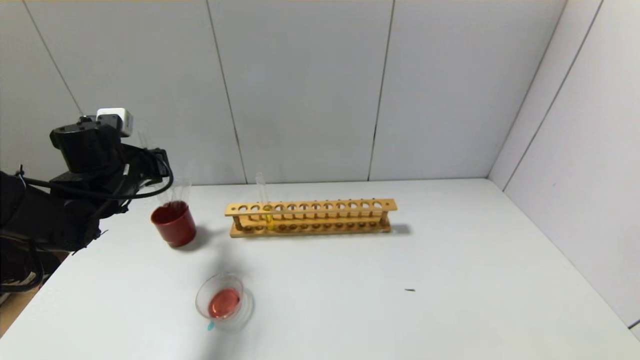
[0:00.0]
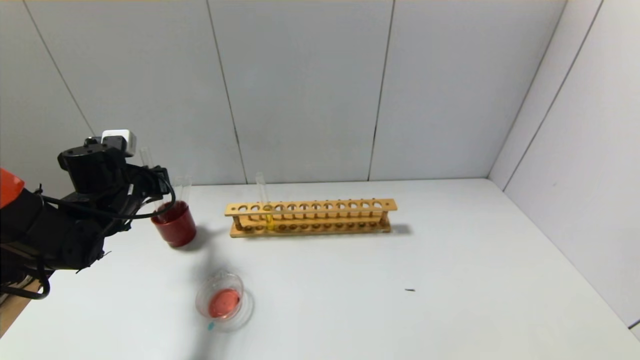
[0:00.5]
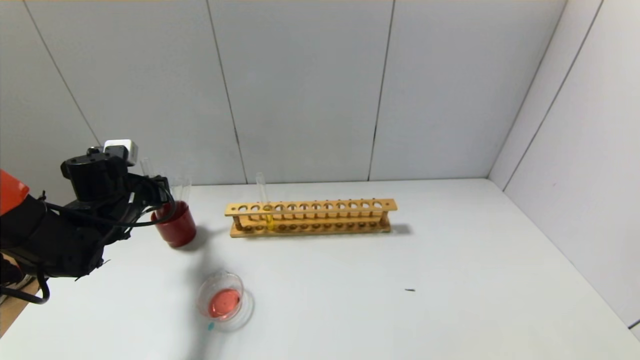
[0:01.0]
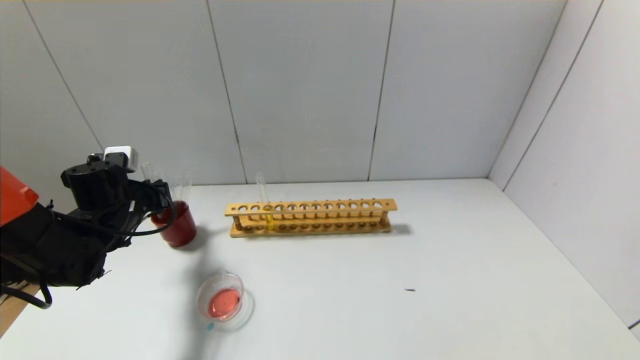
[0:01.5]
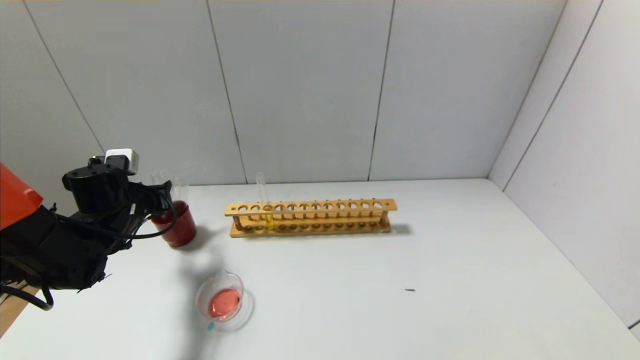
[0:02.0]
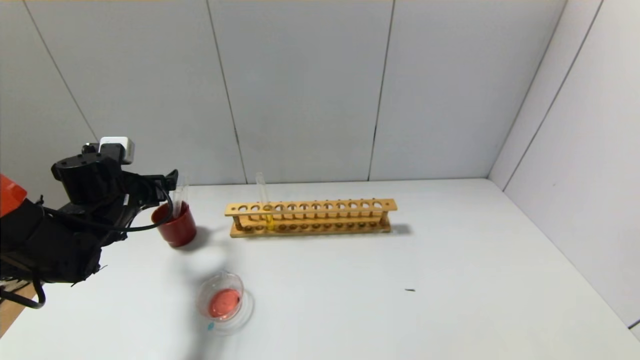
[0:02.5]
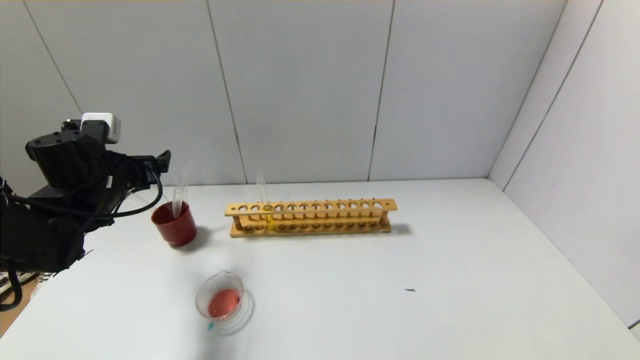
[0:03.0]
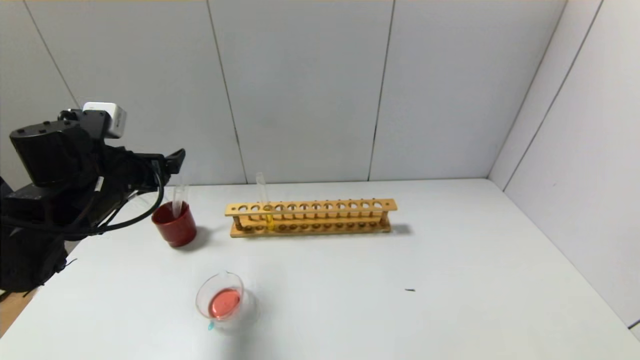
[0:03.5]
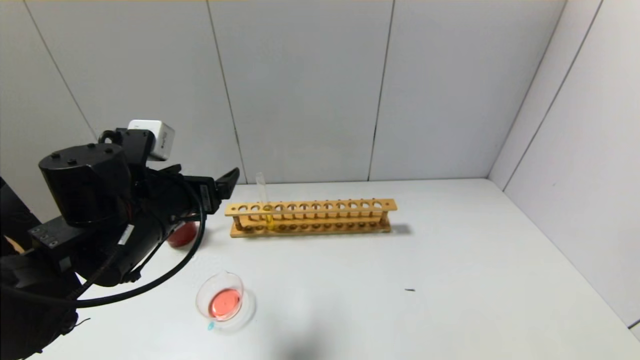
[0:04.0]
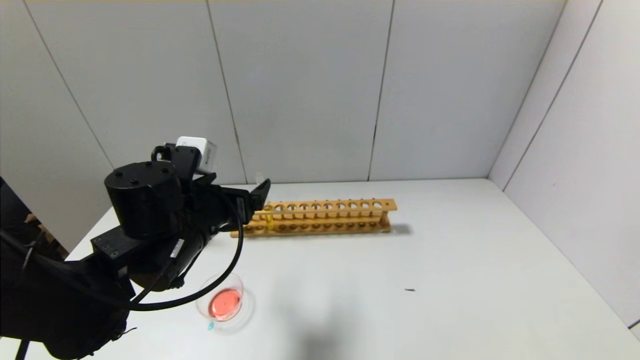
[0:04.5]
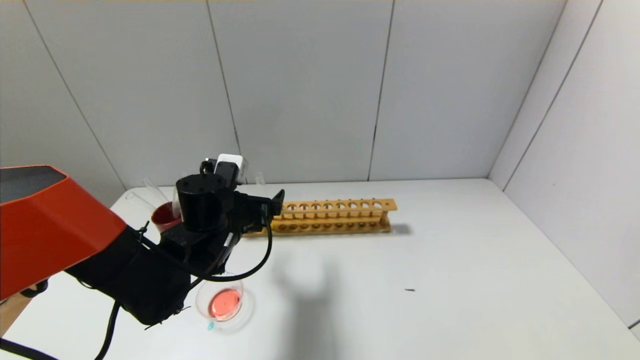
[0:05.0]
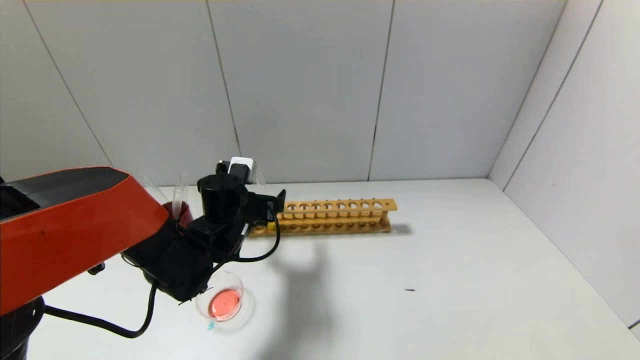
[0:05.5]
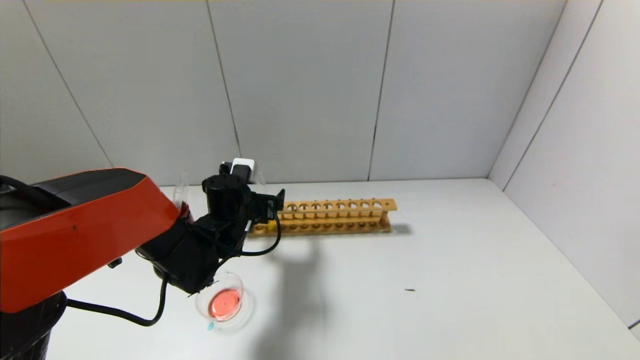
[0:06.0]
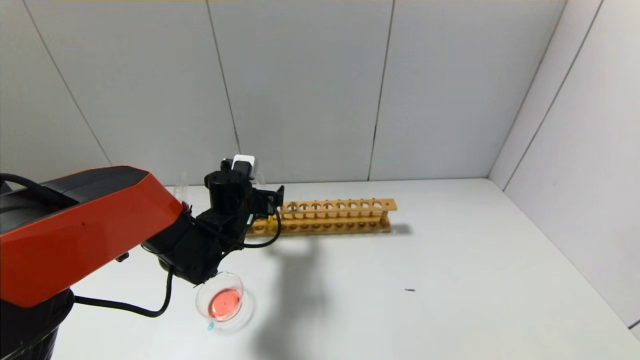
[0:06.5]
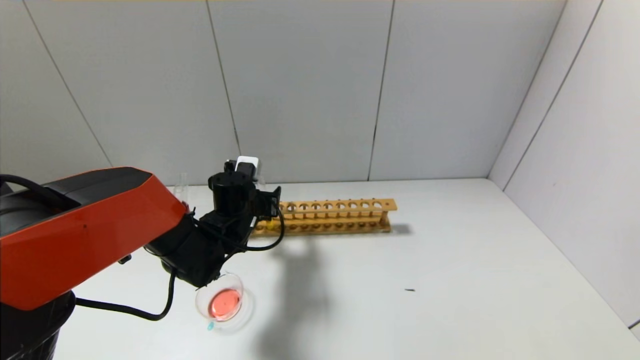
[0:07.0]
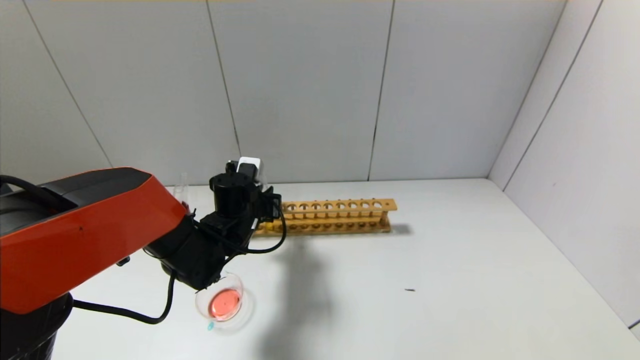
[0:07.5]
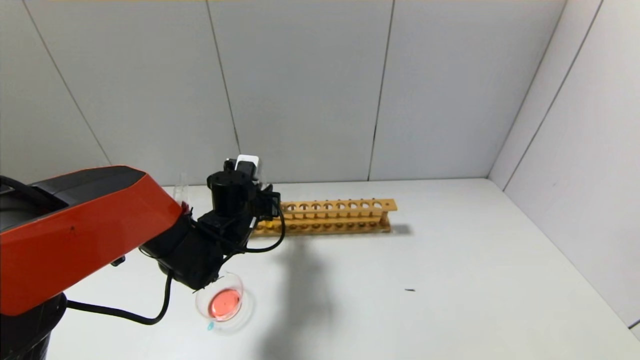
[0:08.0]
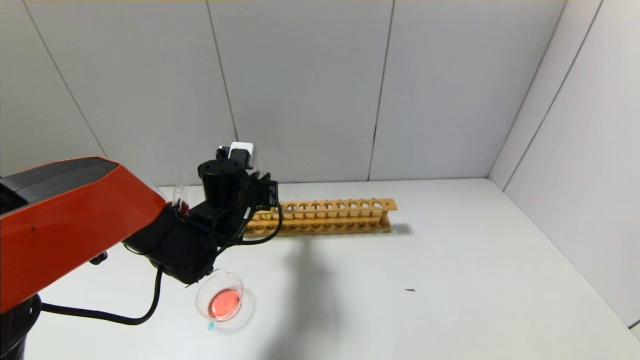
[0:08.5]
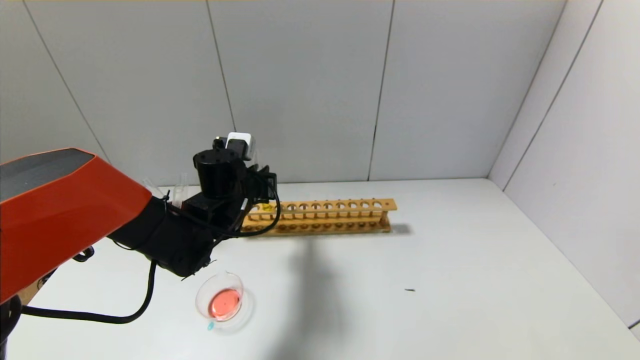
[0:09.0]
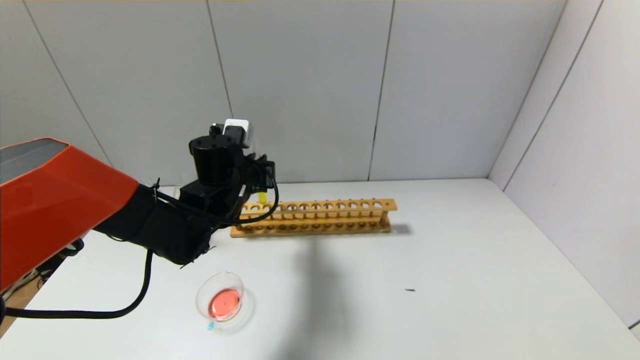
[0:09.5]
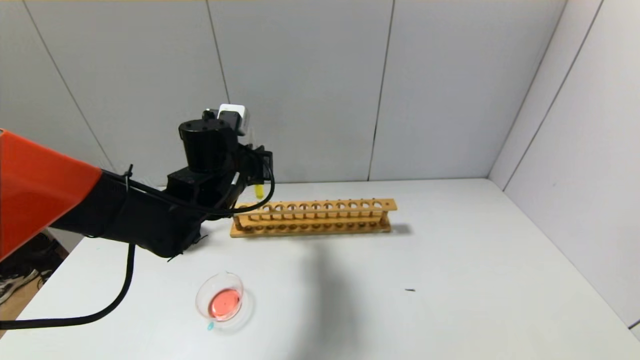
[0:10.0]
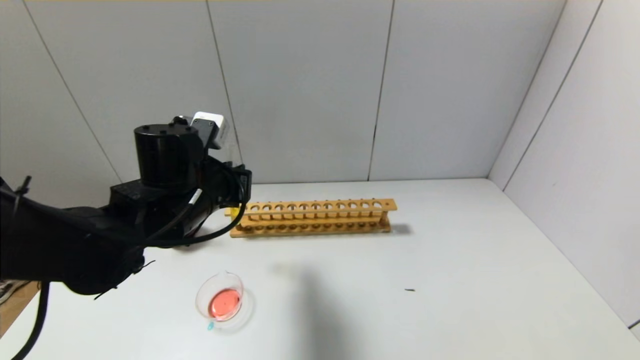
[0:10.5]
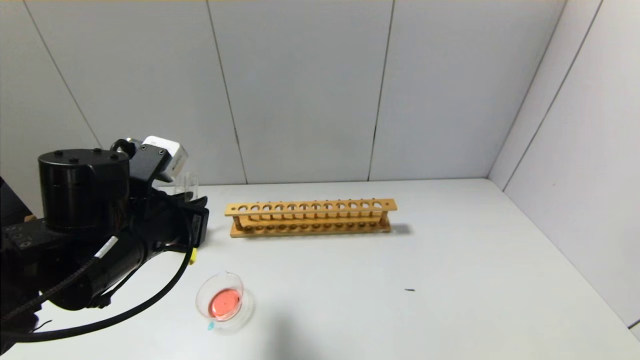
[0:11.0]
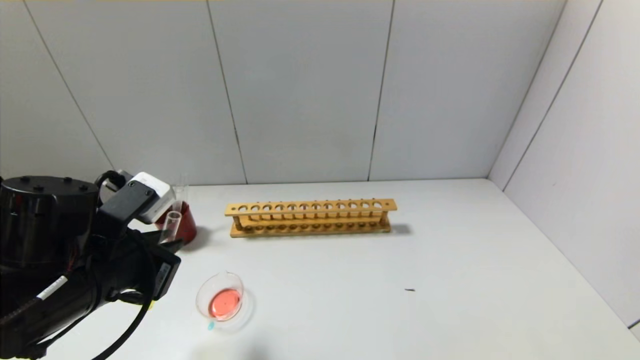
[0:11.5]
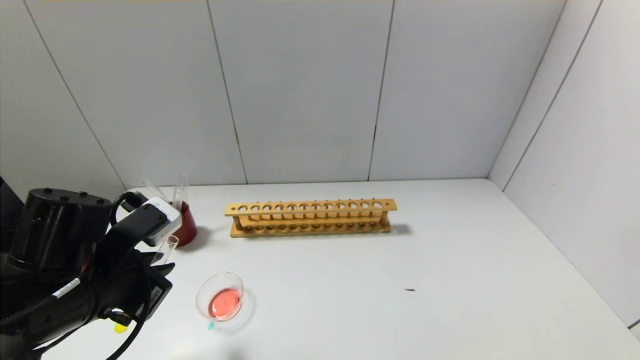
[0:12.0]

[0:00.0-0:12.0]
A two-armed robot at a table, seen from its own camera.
Step, 0:00.0 to 0:02.0: Place the test tube into the brown cup with the left gripper.
Step, 0:02.5 to 0:07.0: Grasp the yellow reagent with the left gripper.
0:00.0 to 0:02.0: The left gripper travels downward by approximately 5 cm, and opens its fingers.
0:02.0 to 0:04.0: The left gripper shifts about 20 cm to the right, backward and upward, and opens.
0:04.0 to 0:06.0: The left gripper is displaced forward and downward by about 15 cm.
0:06.0 to 0:08.0: The left gripper closes up.
0:08.0 to 0:10.0: The left gripper shifts about 10 cm upward.
0:10.0 to 0:12.0: The left gripper shifts approximately 20 cm backward and to the left.

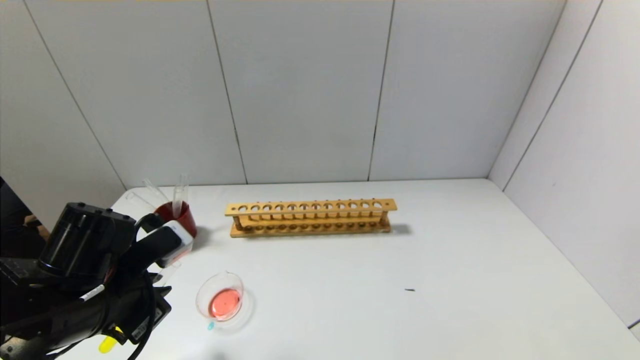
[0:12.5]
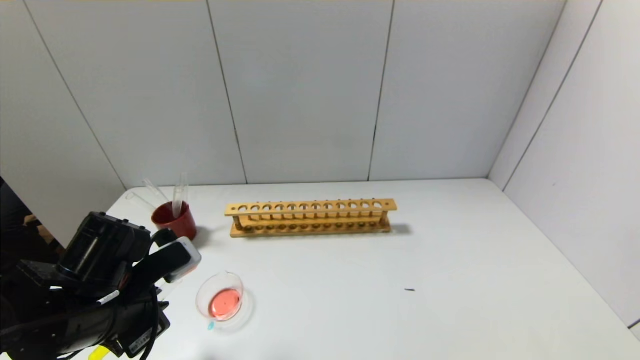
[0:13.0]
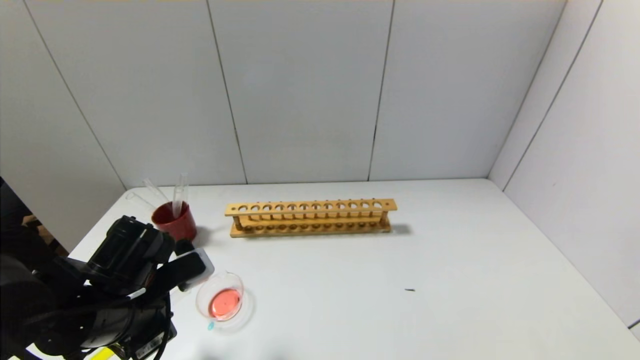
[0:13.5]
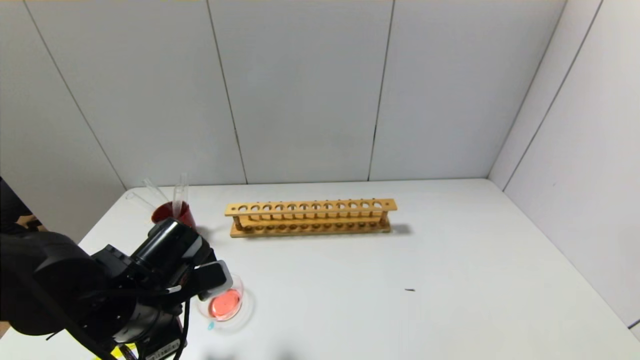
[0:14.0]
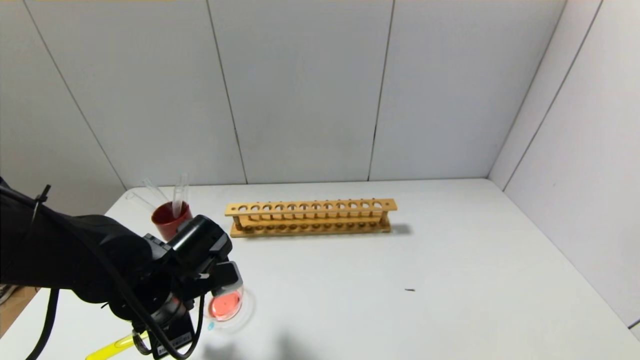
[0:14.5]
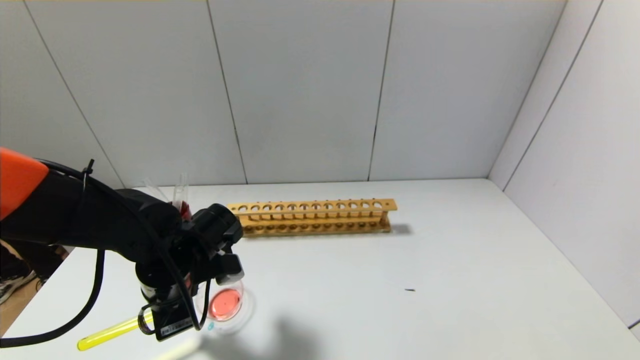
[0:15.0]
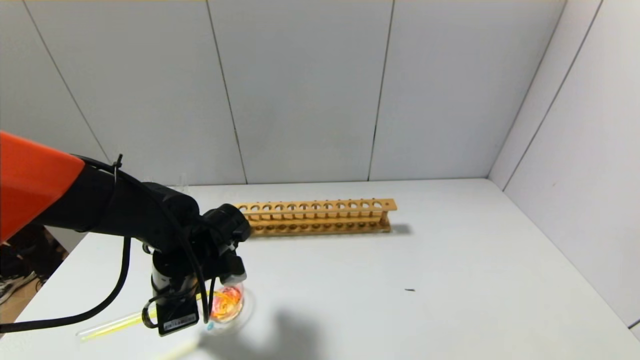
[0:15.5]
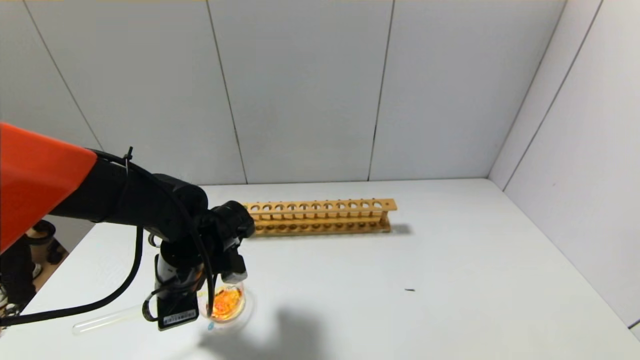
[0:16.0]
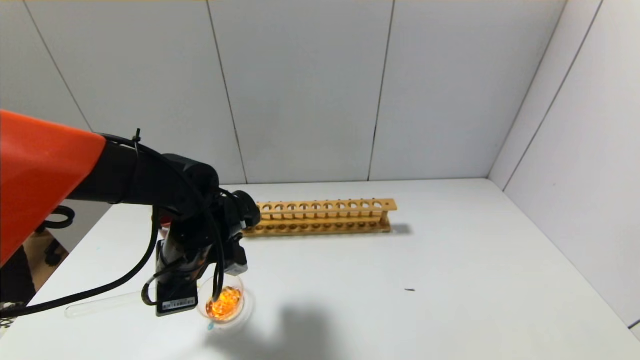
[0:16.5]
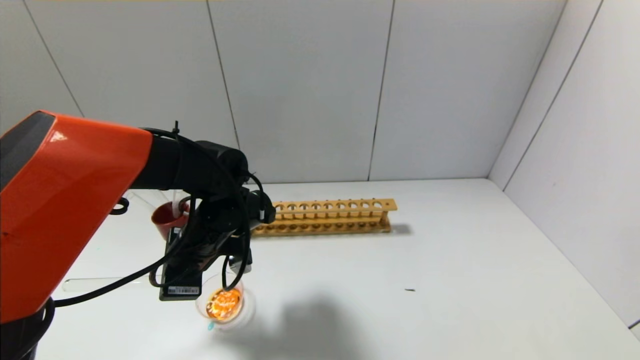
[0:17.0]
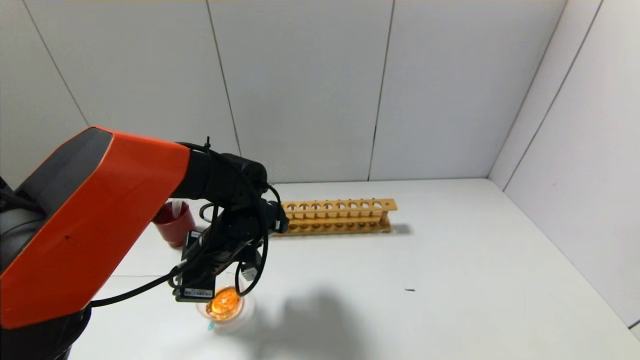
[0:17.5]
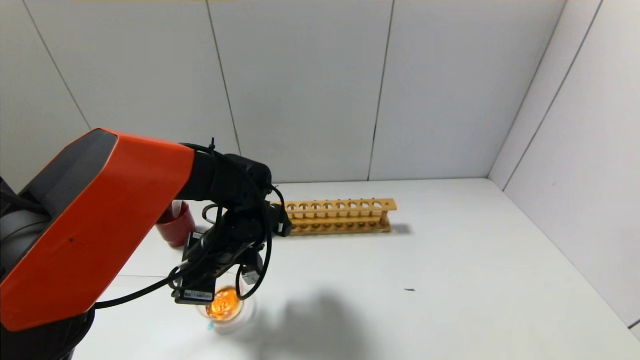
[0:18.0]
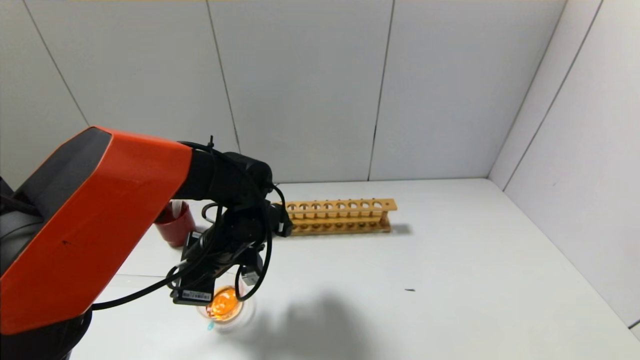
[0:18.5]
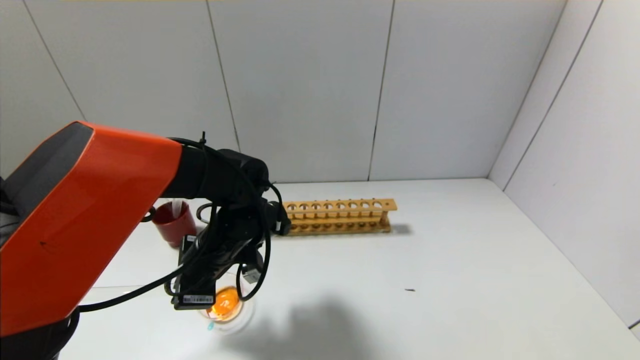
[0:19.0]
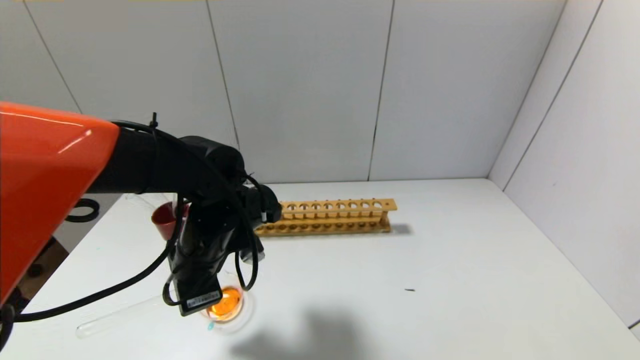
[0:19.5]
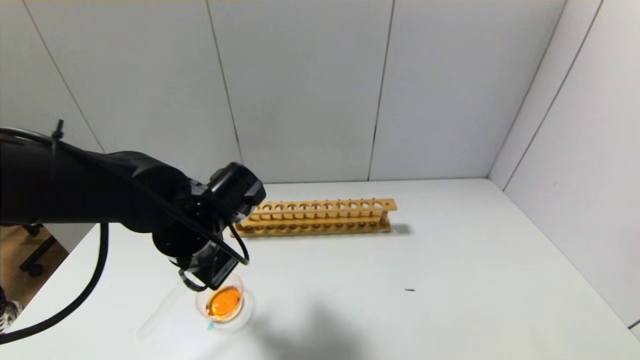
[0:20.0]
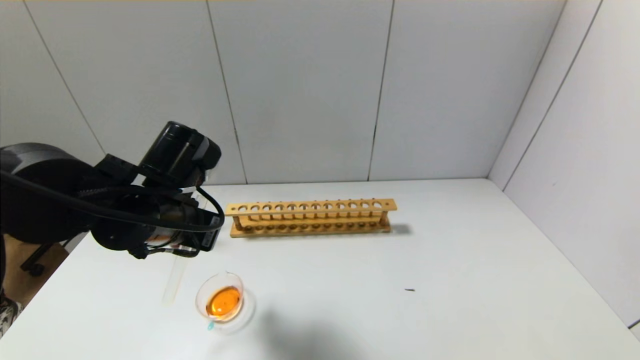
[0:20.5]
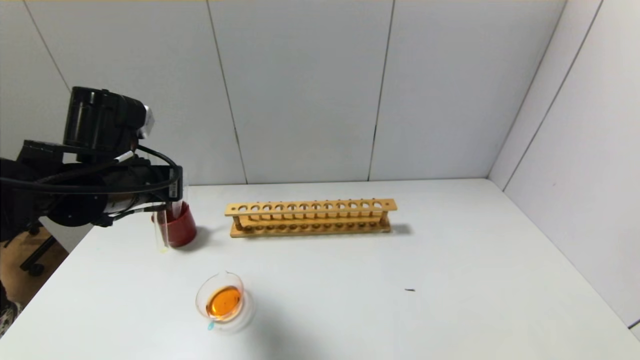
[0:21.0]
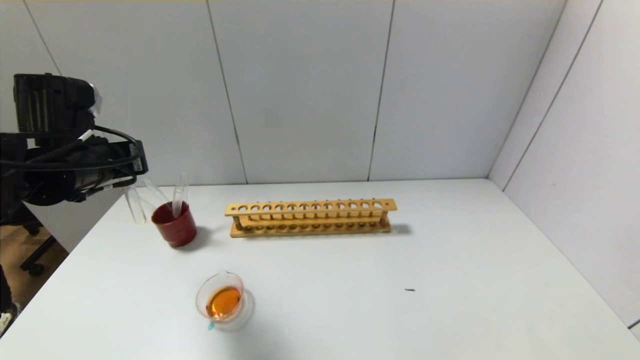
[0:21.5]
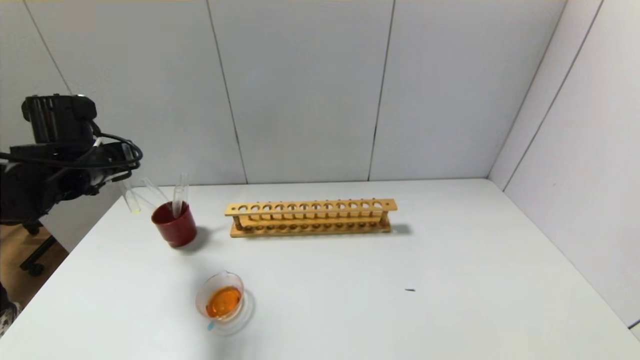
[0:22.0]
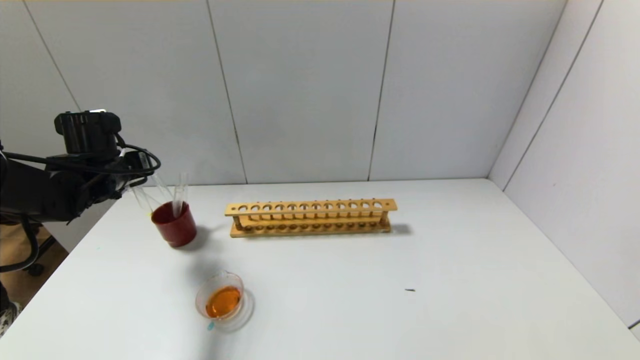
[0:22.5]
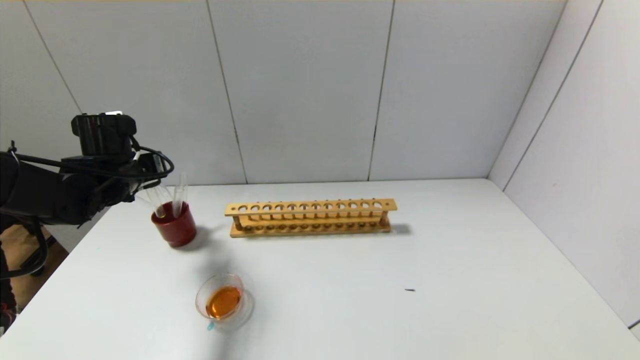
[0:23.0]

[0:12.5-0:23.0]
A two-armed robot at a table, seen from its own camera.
Step, 0:12.5 to 0:19.5: Pour the yellow reagent into the graduated cylinder with the left gripper.
0:12.5 to 0:14.5: The left gripper shifts by roughly 5 cm.
0:14.5 to 0:16.5: The left gripper is displaced forward by about 5 cm.
0:16.5 to 0:19.0: The grippers make only small movements.
0:19.0 to 0:21.0: The left gripper heads upward and to the left, covering some 15 cm.
0:21.0 to 0:23.0: The left gripper is displaced forward, to the left and downward by some 15 cm.
